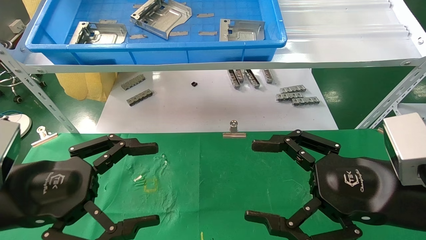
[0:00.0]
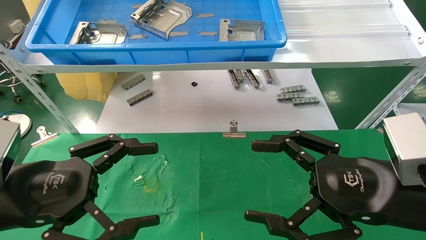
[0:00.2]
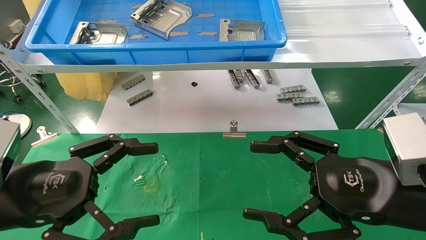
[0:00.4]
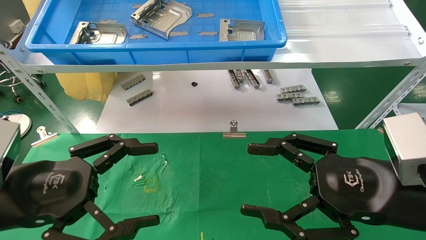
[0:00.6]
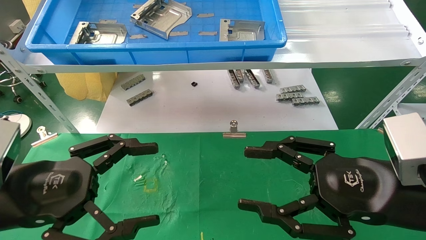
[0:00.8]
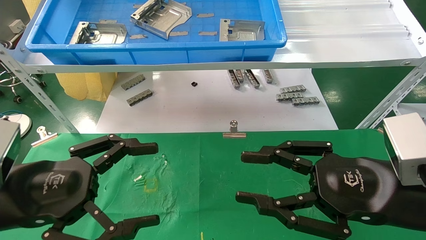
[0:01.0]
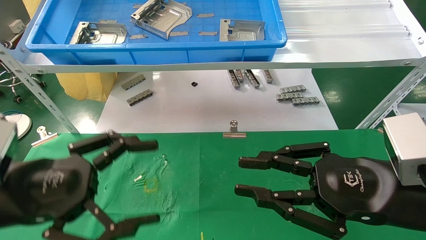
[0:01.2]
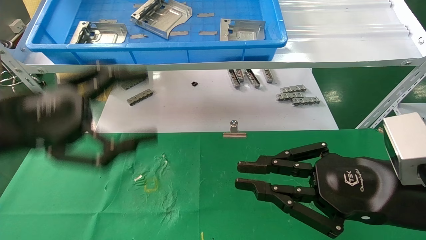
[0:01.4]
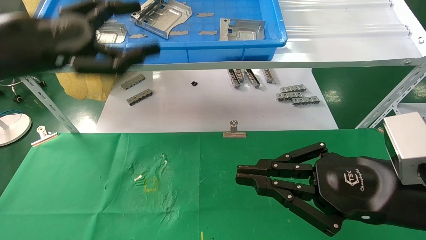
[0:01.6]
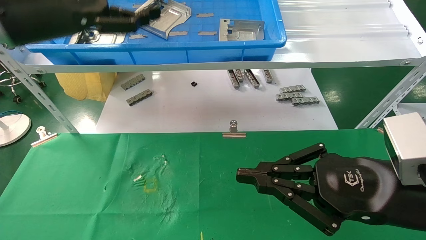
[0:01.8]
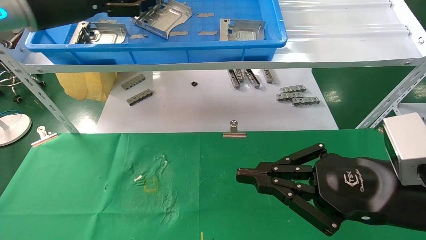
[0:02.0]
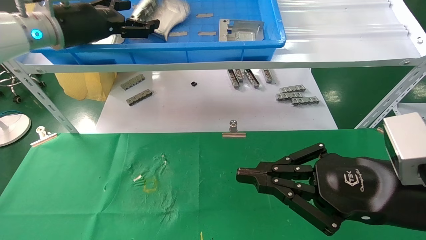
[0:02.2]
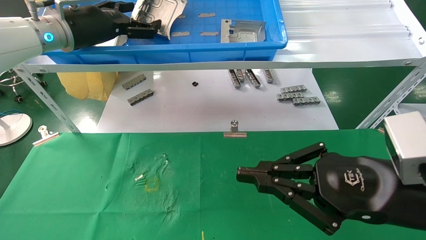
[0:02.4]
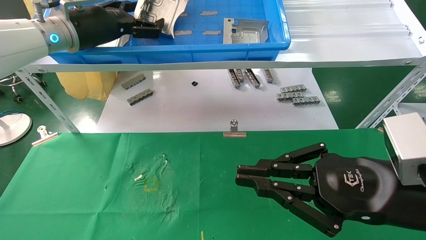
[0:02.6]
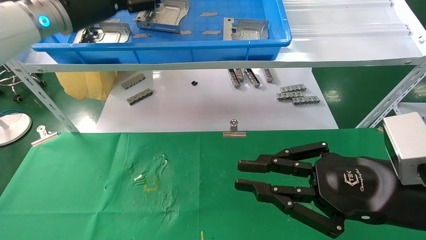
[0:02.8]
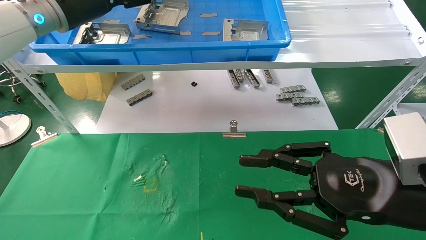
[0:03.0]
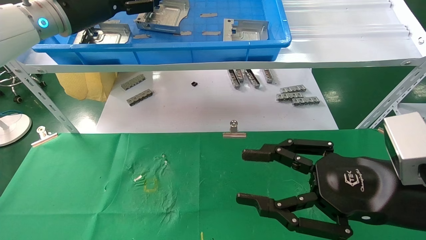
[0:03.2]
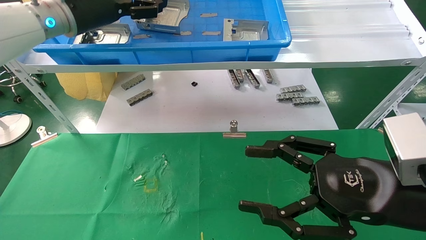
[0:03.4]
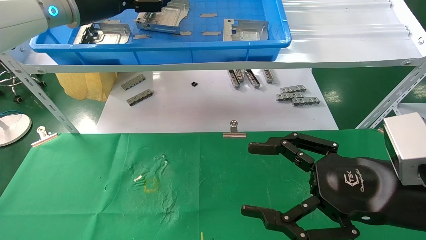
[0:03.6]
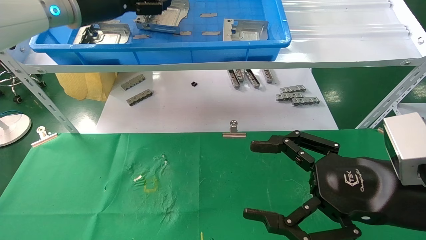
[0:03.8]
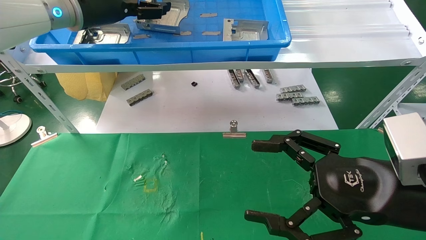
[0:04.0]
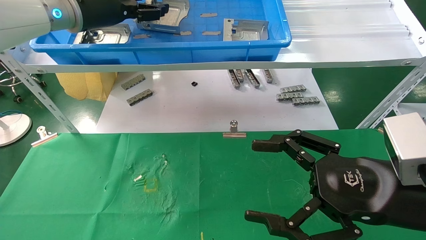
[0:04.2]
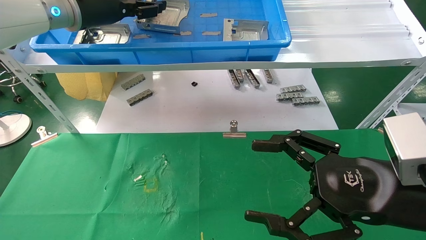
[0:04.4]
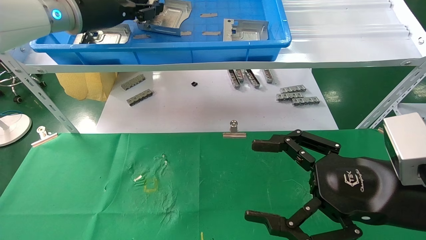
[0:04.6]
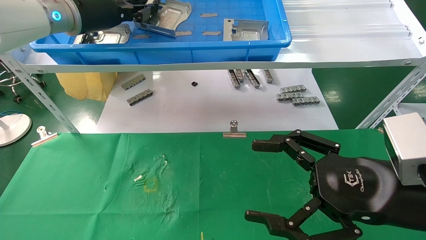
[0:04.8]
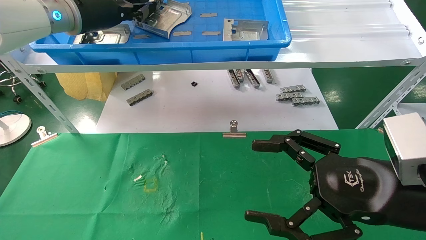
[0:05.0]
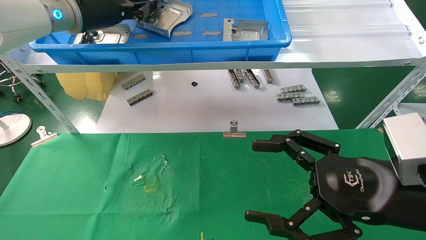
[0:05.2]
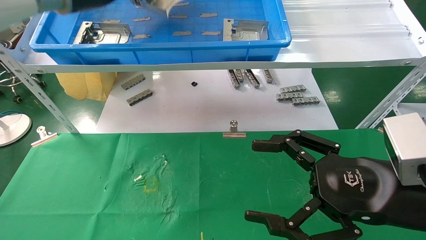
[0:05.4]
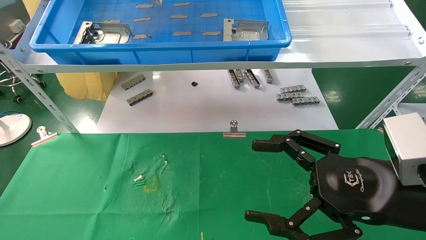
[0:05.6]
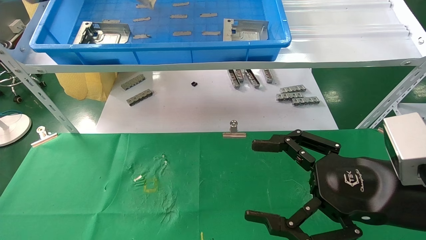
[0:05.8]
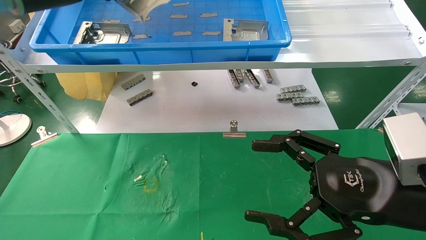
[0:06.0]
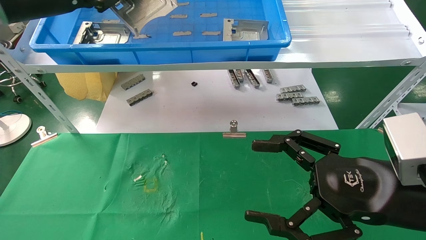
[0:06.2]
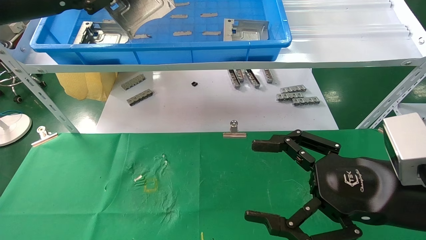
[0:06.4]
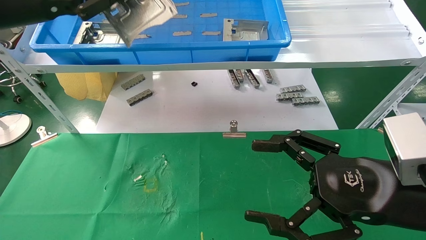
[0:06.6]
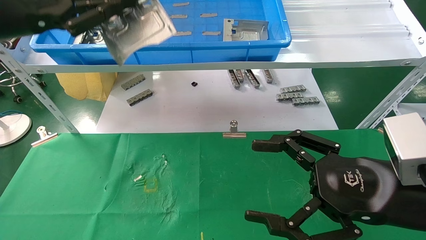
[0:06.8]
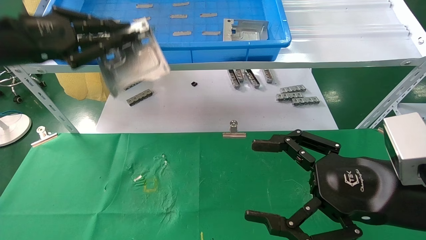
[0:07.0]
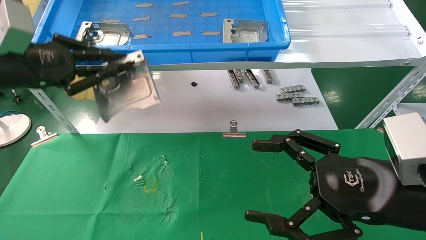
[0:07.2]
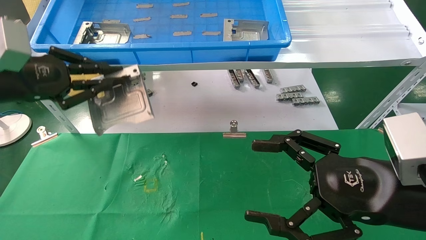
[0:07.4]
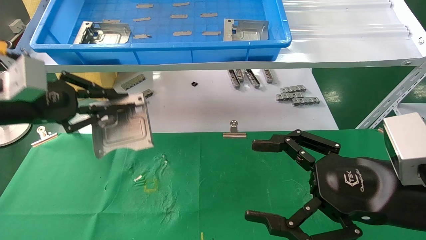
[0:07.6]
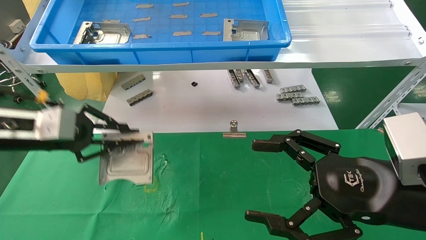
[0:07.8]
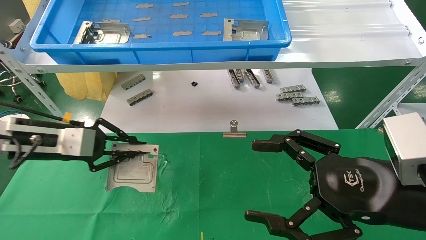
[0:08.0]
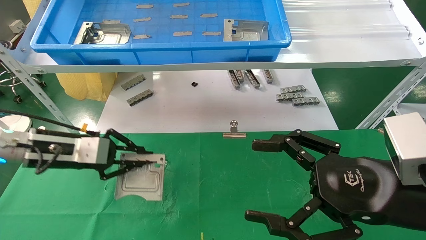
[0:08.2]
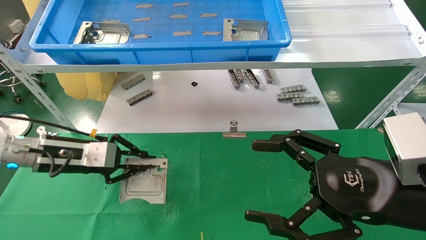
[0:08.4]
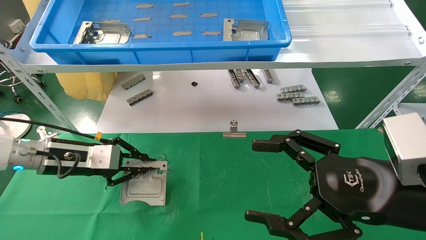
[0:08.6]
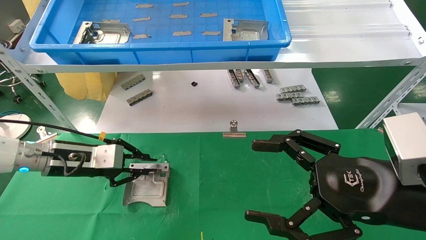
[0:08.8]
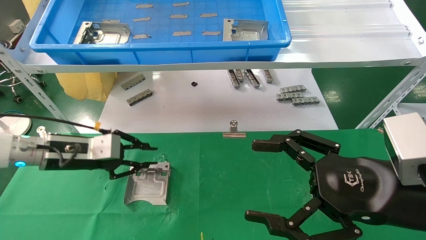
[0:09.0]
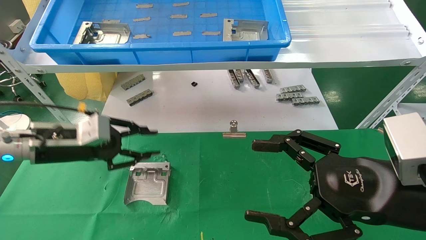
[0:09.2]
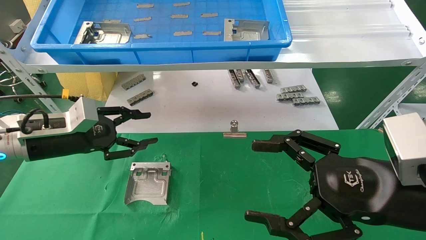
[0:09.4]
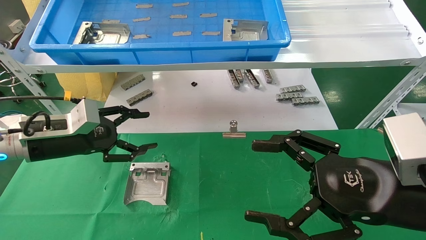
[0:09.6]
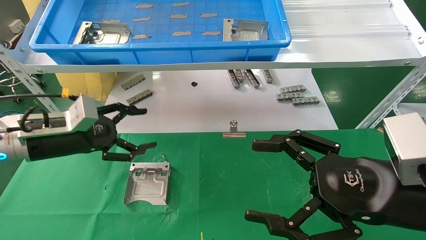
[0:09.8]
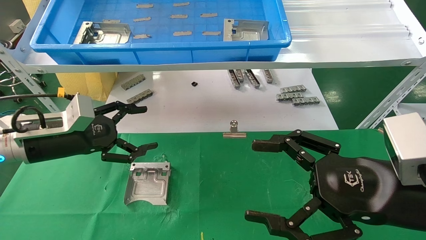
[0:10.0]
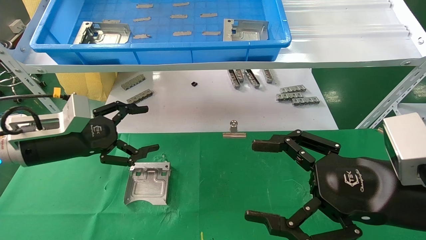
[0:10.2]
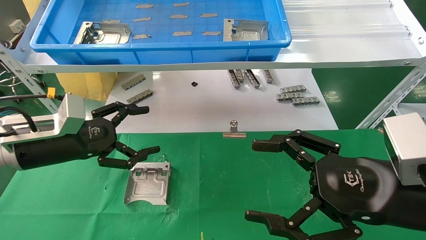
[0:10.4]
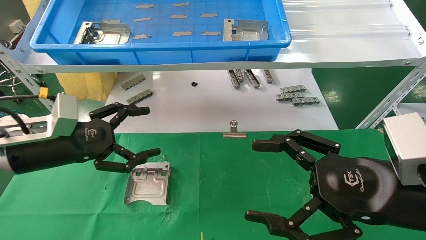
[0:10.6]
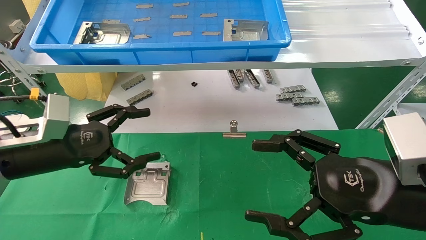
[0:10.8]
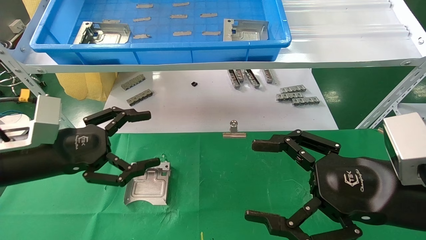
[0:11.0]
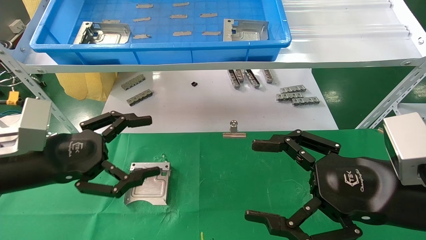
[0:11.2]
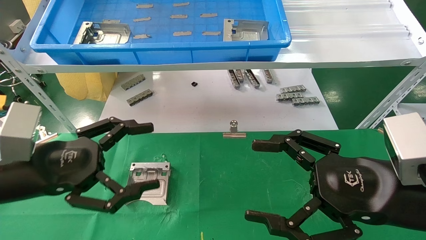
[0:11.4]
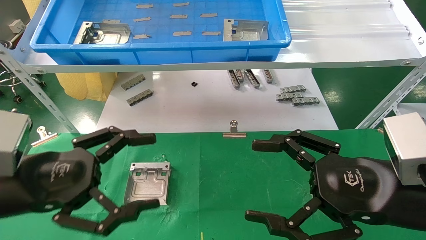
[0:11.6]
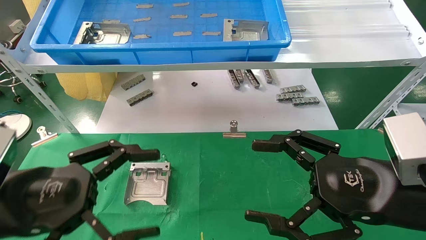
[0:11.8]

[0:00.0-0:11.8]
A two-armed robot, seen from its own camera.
Task of the whole recording: use the mechanical arm to pick up the parts and place them on the table.
Step, 0:01.4 to 0:03.2: Pick up the hard drive bracket from the feeding area.
Step, 0:03.4 to 0:05.8: Place the hard drive bracket into the box.
0:00.0 to 0:01.4: The right gripper closes up; the left gripper heads upward, covering roughly 10 cm.
0:01.4 to 0:03.0: The left gripper goes some 20 cm forward and upward.
0:03.0 to 0:04.4: The right gripper opens up.
0:04.4 to 0:06.0: The left gripper shifts about 10 cm backward and to the left, and closes.
0:06.0 to 0:07.4: The left gripper shifts about 15 cm downward, backward and to the left.
0:07.4 to 0:08.8: The left gripper goes about 15 cm downward and forward.
0:08.8 to 0:10.4: The left gripper changes place by approximately 5 cm, and opens up.
0:10.4 to 0:11.8: The left gripper shifts about 15 cm backward.

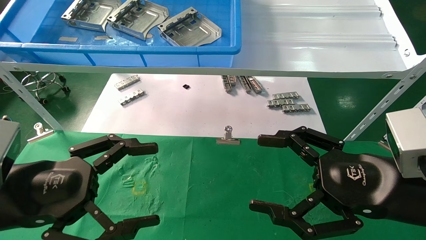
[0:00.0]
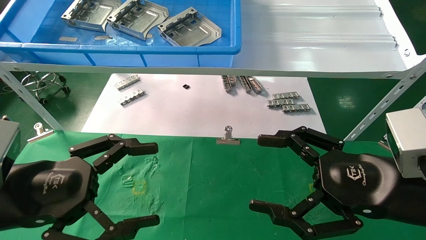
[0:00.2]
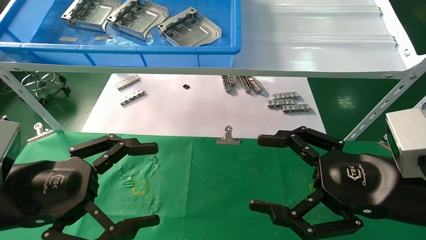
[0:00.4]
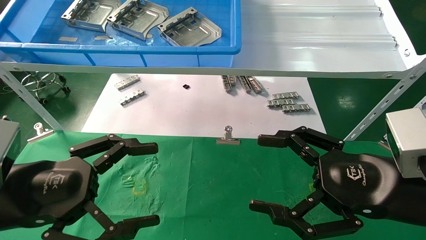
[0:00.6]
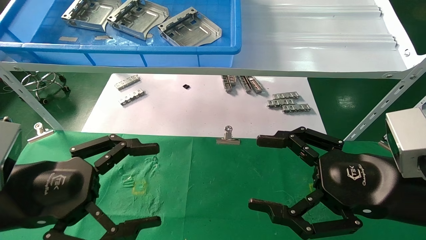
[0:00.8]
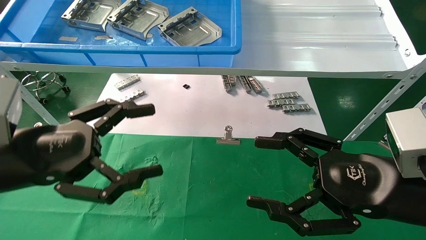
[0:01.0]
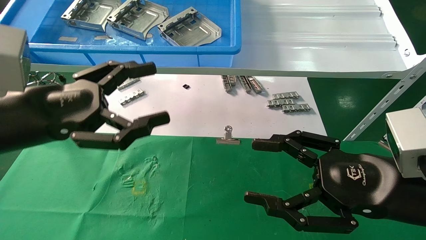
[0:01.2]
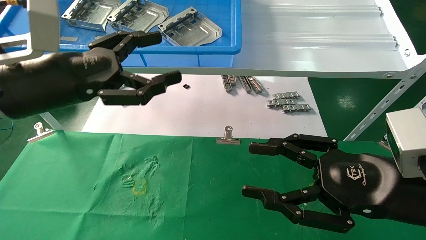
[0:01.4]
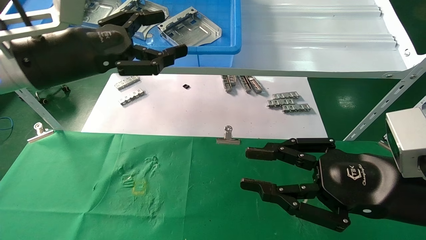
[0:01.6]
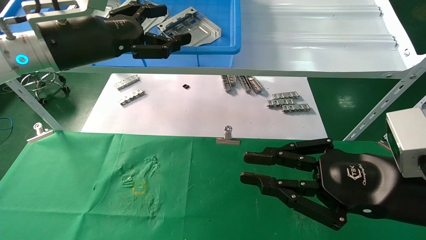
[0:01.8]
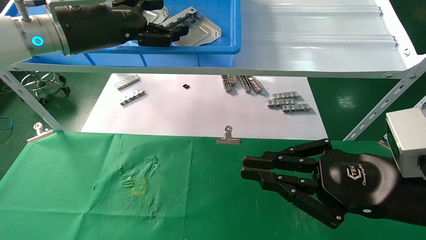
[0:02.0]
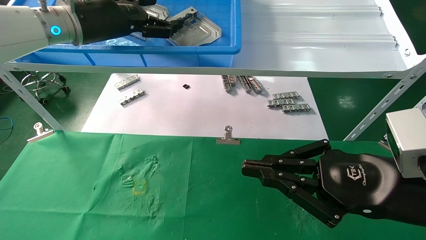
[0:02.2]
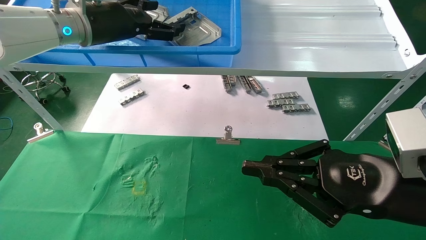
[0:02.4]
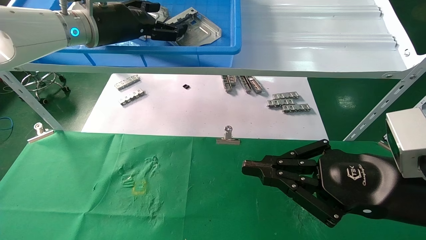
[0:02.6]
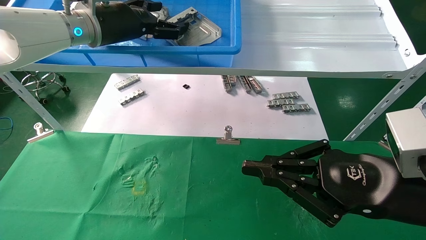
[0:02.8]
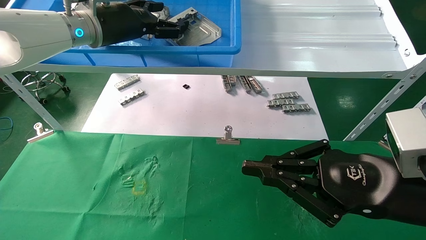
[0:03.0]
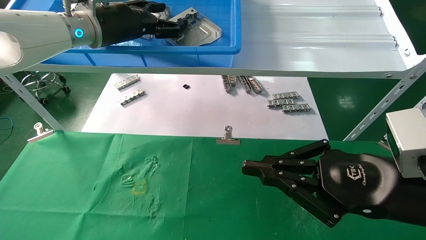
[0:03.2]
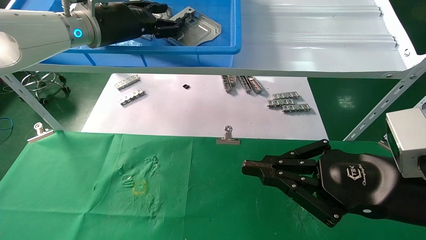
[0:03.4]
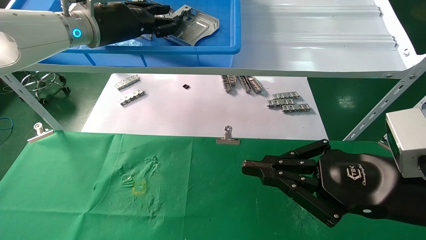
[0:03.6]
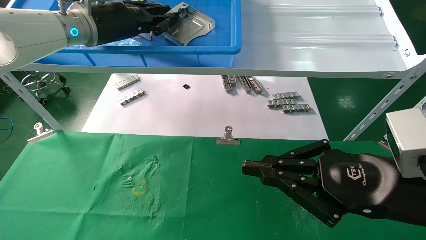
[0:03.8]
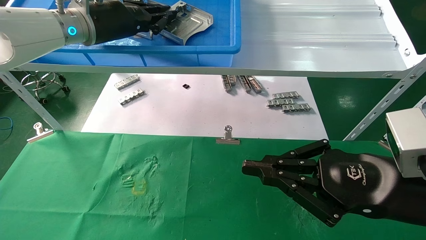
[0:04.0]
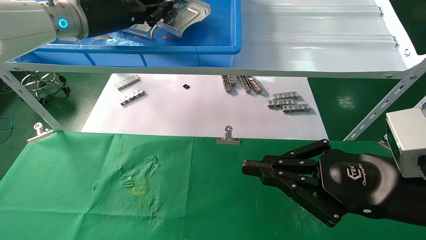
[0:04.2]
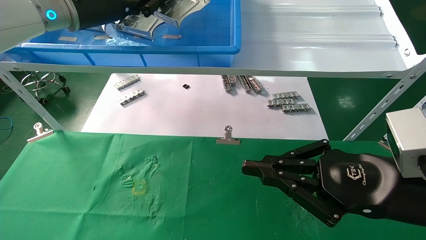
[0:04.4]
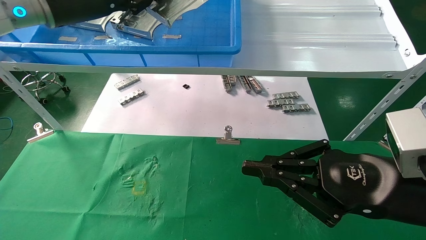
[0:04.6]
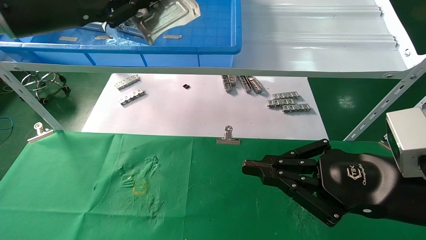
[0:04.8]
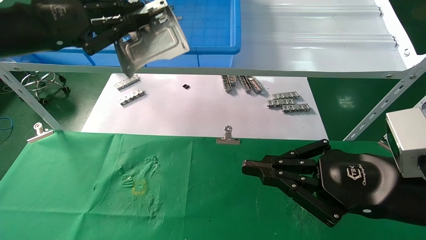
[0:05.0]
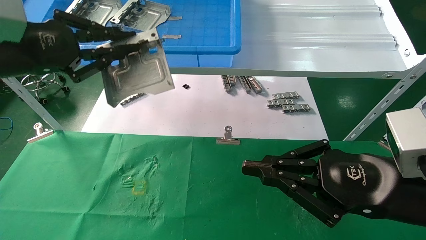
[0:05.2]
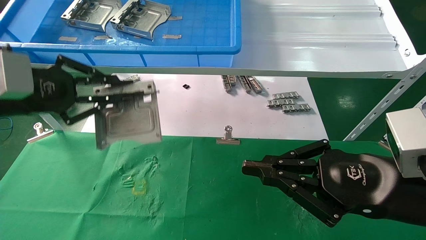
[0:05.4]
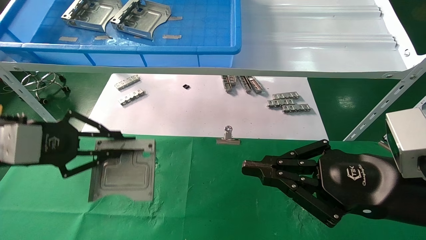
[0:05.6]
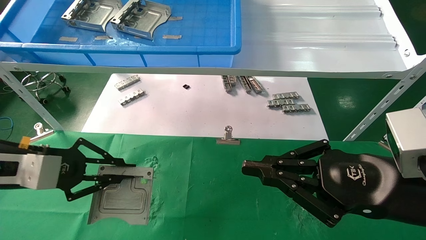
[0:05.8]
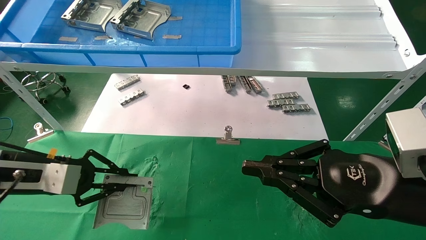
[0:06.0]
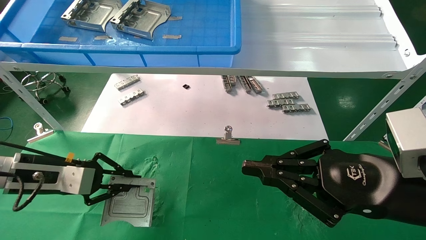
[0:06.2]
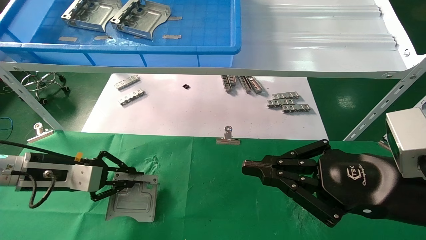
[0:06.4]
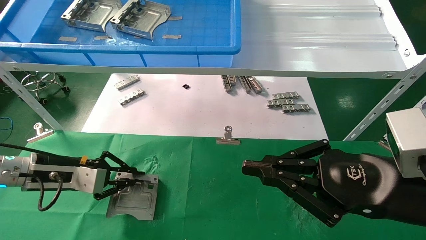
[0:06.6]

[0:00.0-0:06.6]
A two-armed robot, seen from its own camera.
Task of the whole recording: use the mechanical arm to pick up the parts and place them on the table.
Step, 0:01.2 to 0:04.0: Pick up the hard drive bracket from the feeding area.
0:00.0 to 0:01.6: The right gripper closes up. Meanwhile the left gripper heads upward and forward, covering about 20 cm.
0:01.6 to 0:03.2: The left gripper is displaced forward and upward by roughly 15 cm. Meanwhile the right gripper closes up.
0:03.2 to 0:05.0: The left gripper travels backward and to the left by approximately 15 cm, and closes up.
0:05.0 to 0:06.6: The left gripper moves downward, about 25 cm.
